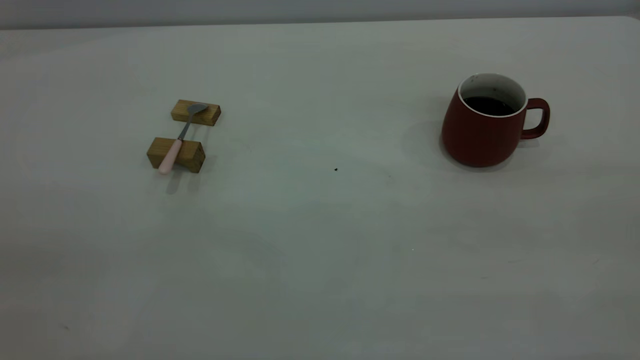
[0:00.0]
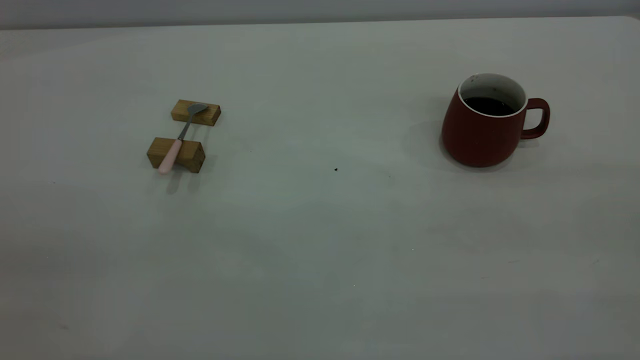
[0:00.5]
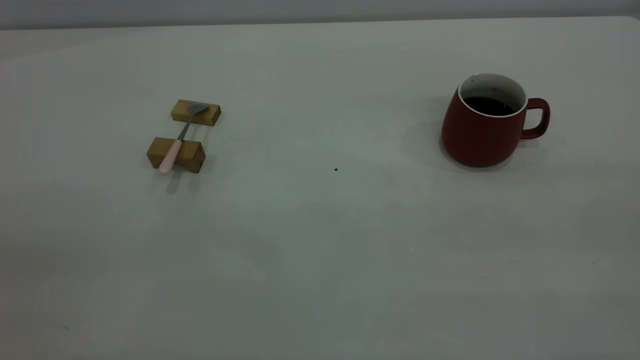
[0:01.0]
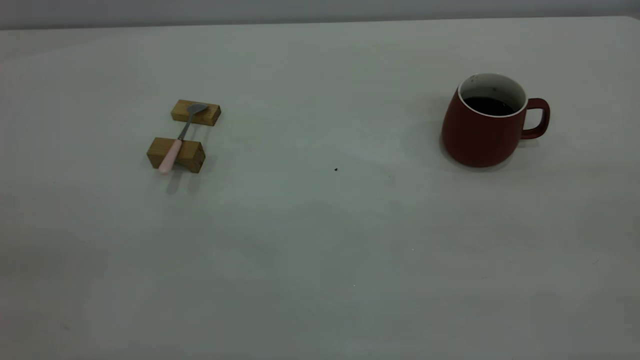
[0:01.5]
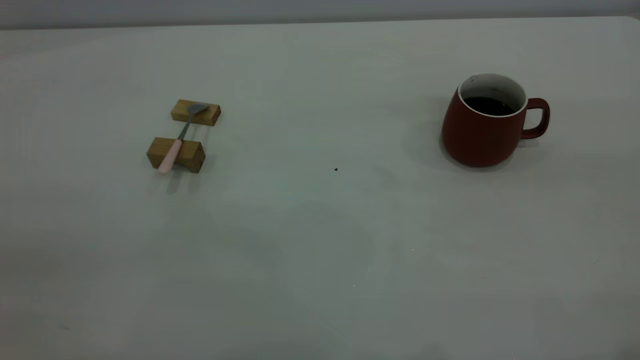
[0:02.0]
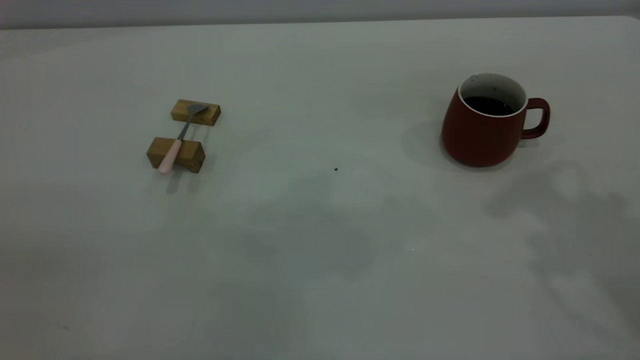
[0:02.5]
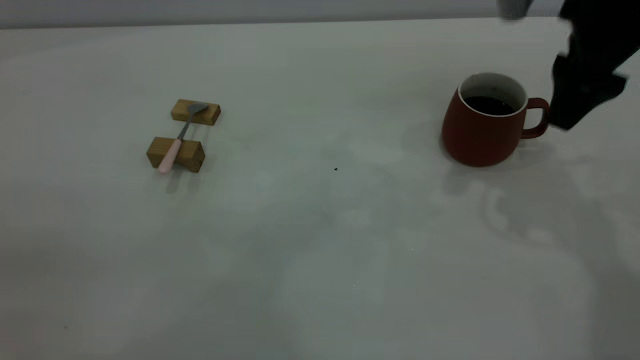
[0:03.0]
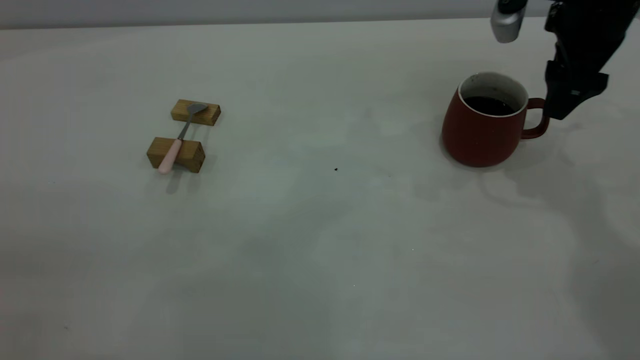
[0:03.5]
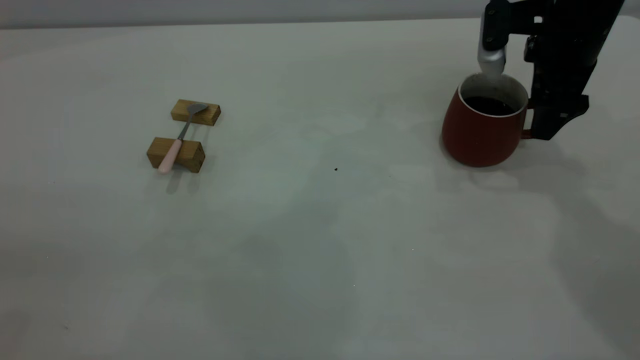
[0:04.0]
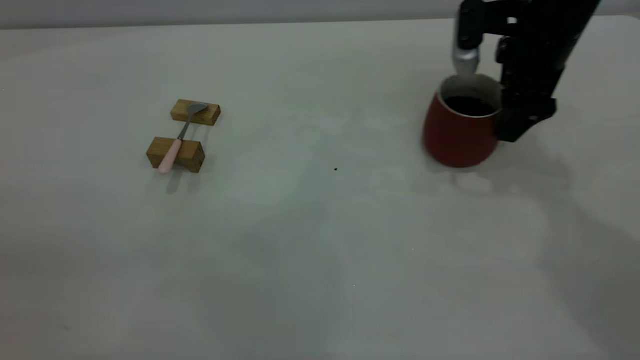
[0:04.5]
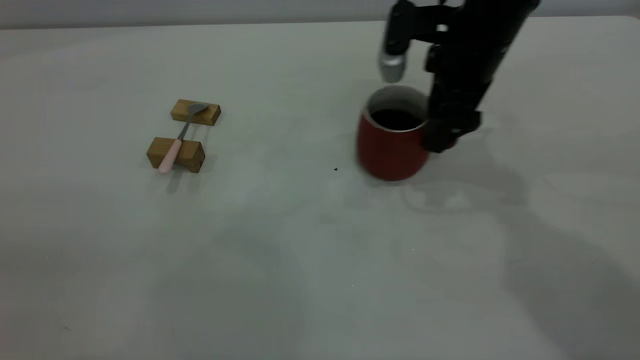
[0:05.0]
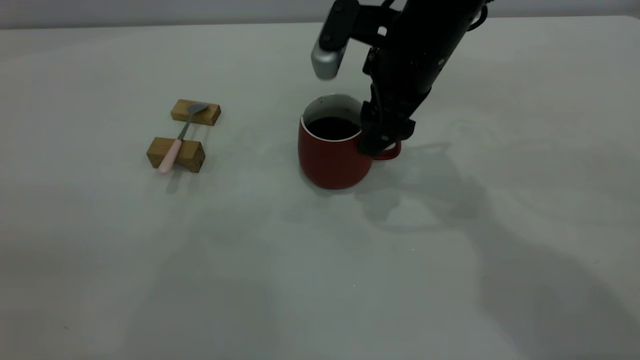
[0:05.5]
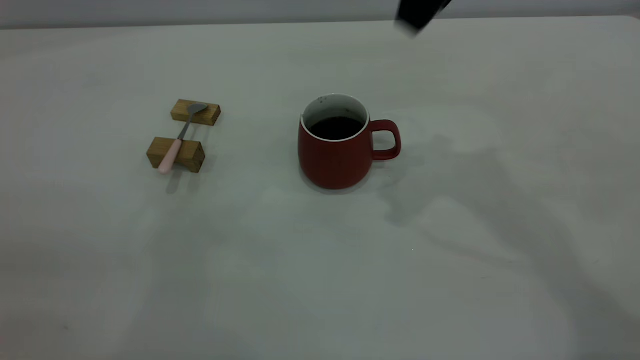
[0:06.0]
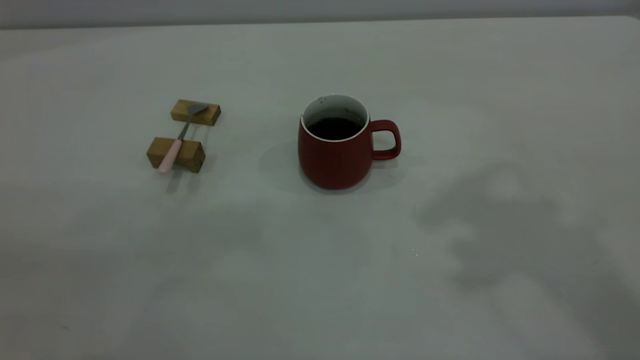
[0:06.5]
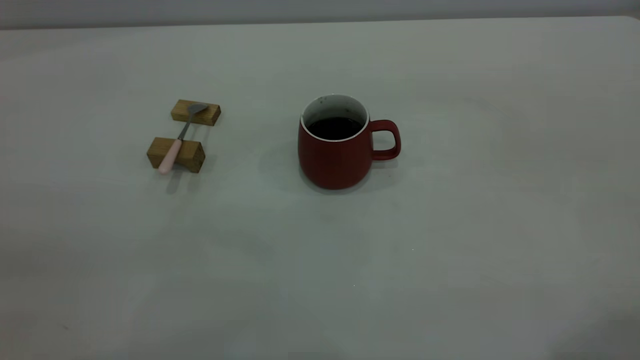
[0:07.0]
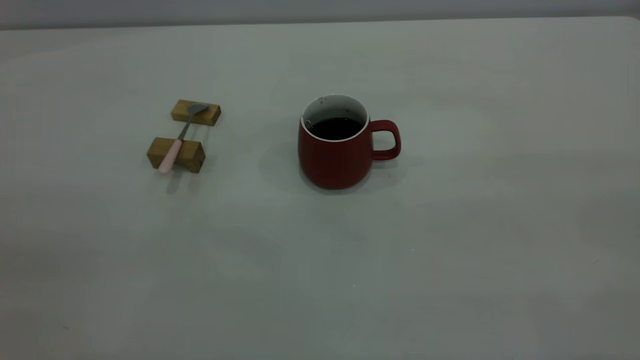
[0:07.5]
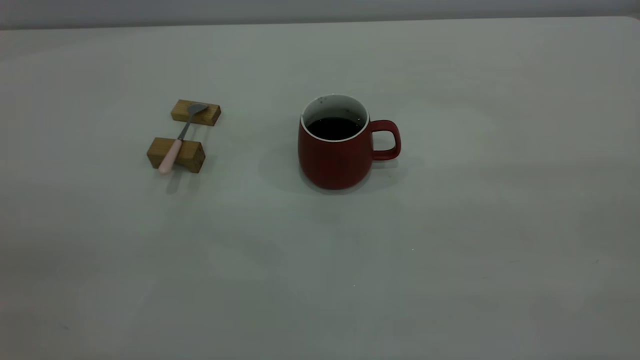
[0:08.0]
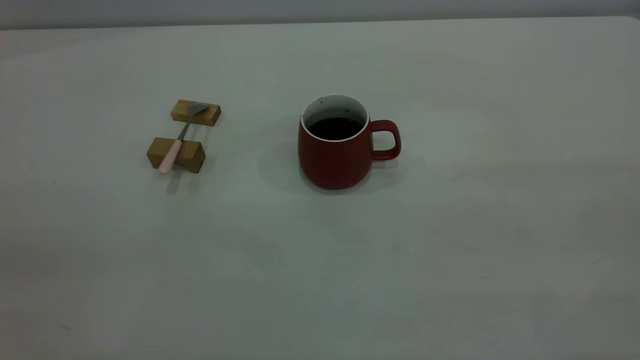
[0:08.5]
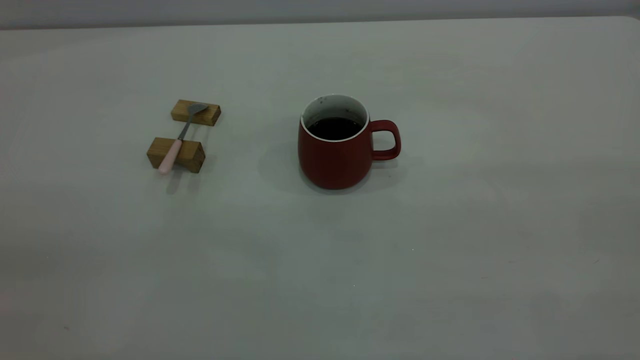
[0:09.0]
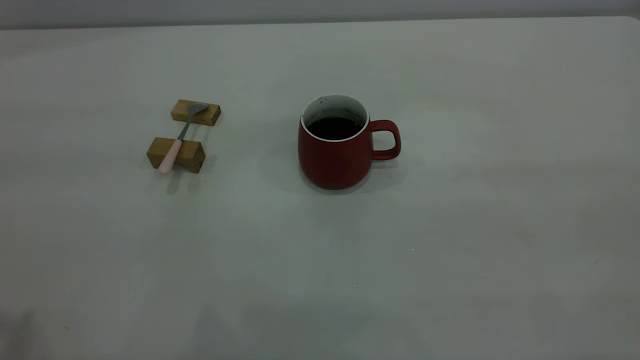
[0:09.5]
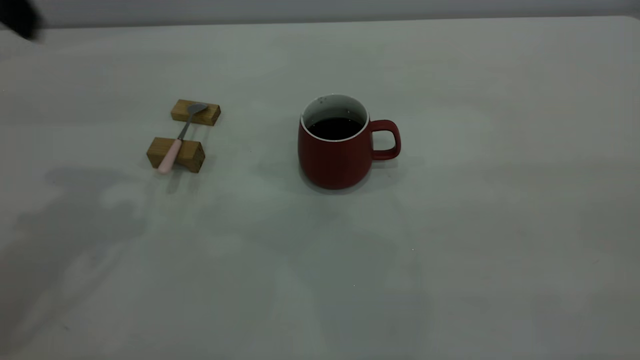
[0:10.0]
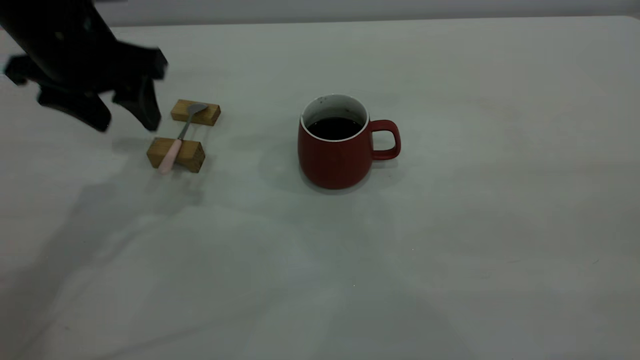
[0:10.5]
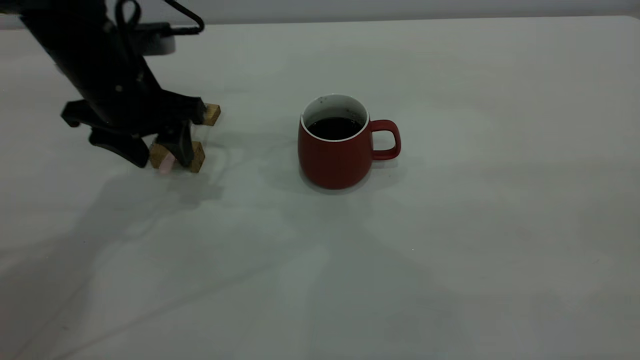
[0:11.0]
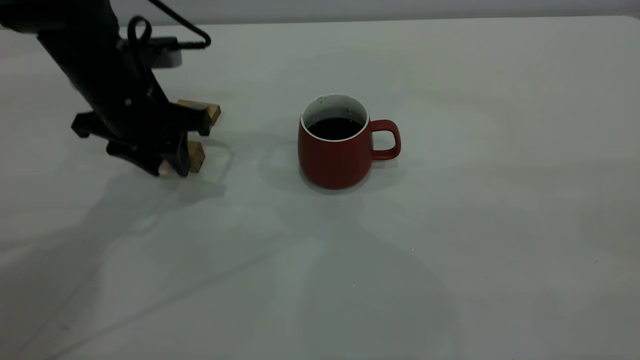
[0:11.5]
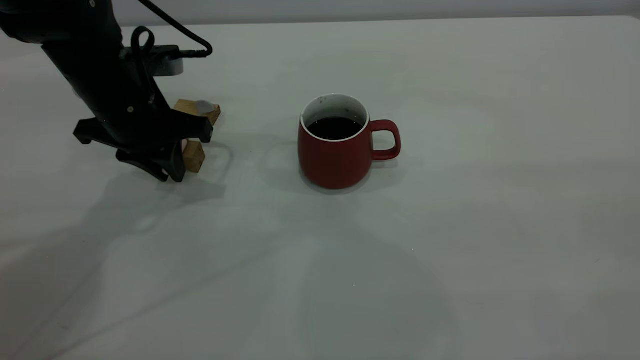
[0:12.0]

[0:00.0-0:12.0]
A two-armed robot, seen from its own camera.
Step, 0:00.0 to 0:05.5: Move the cup with coffee to the center of view.
0:02.0 to 0:04.0: The right gripper travels forward and downward by some 40 cm, and opens.
0:04.0 to 0:06.0: The right gripper shifts about 20 cm upward and to the left, and closes.
0:10.0 to 0:12.0: The left gripper heads downward, covering about 20 cm, and closes.

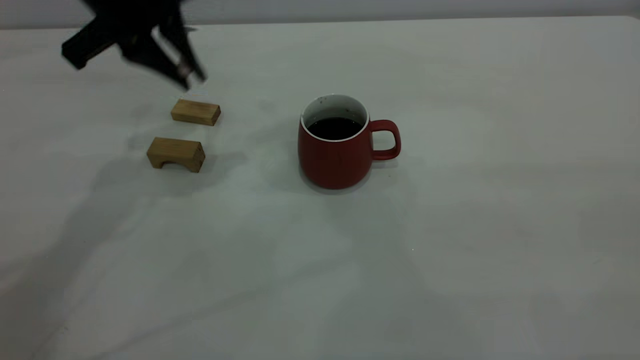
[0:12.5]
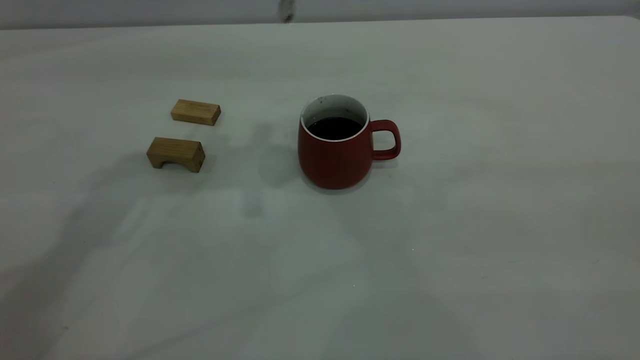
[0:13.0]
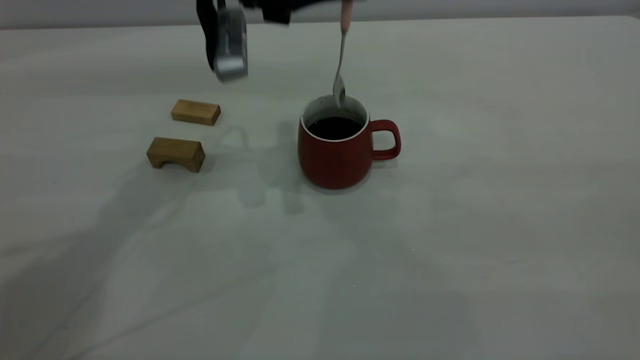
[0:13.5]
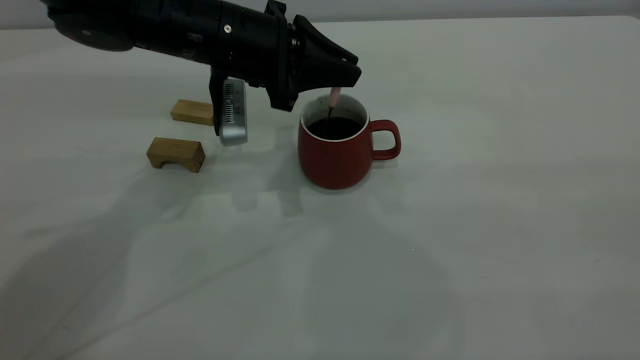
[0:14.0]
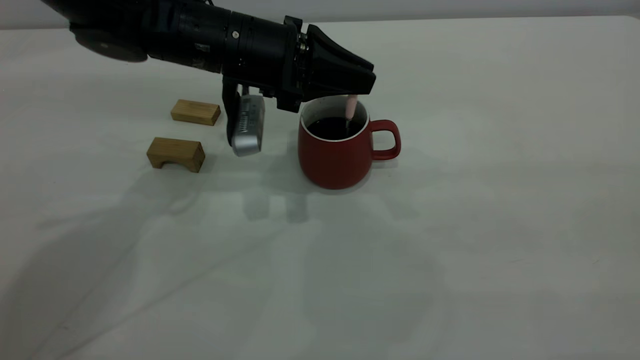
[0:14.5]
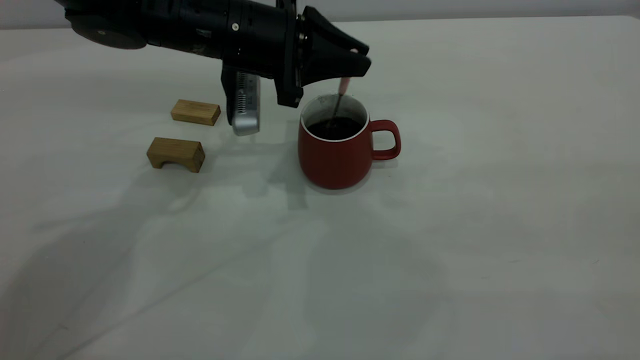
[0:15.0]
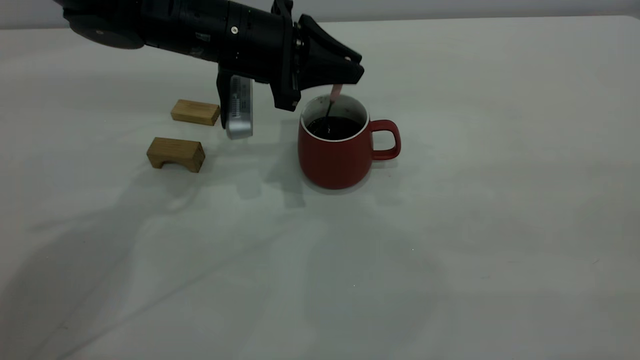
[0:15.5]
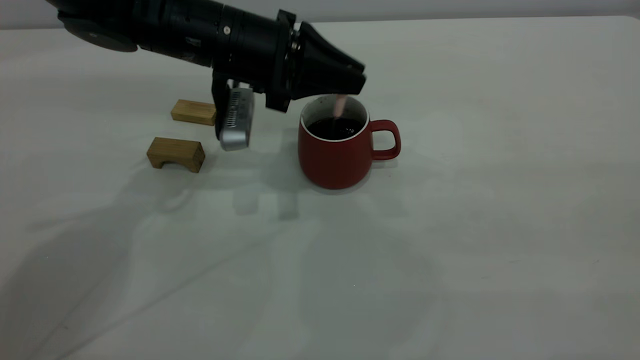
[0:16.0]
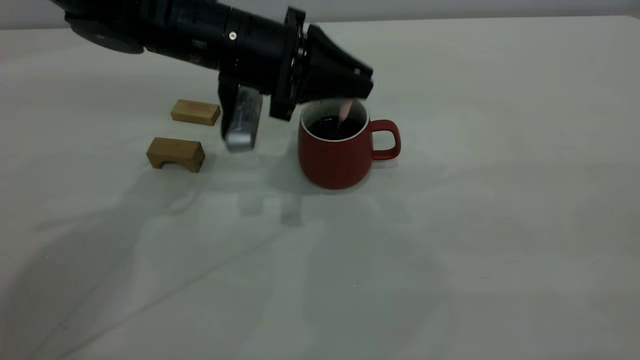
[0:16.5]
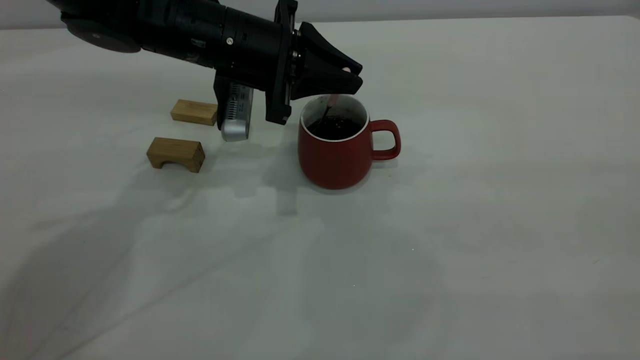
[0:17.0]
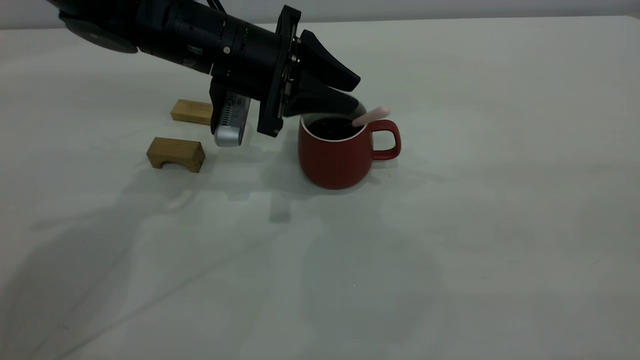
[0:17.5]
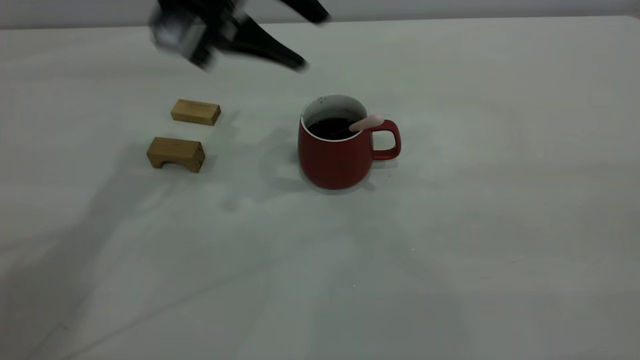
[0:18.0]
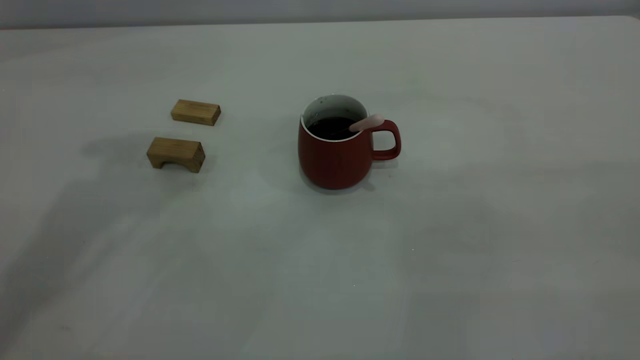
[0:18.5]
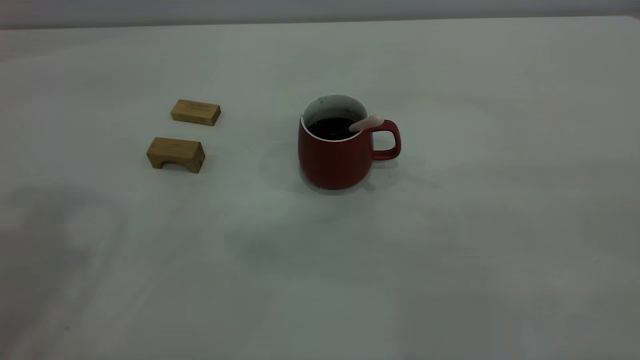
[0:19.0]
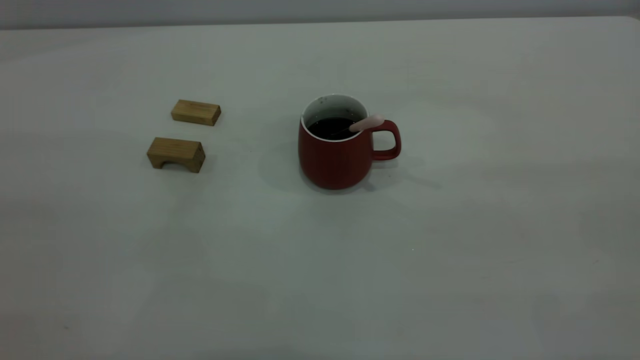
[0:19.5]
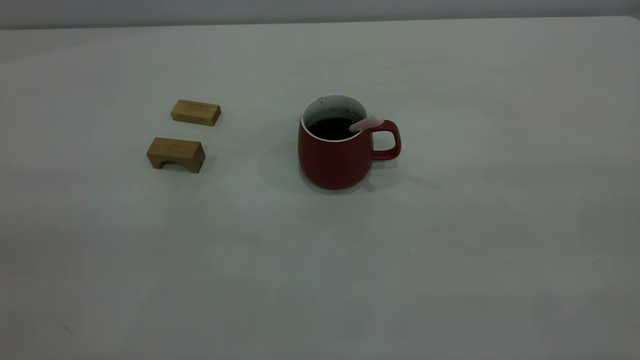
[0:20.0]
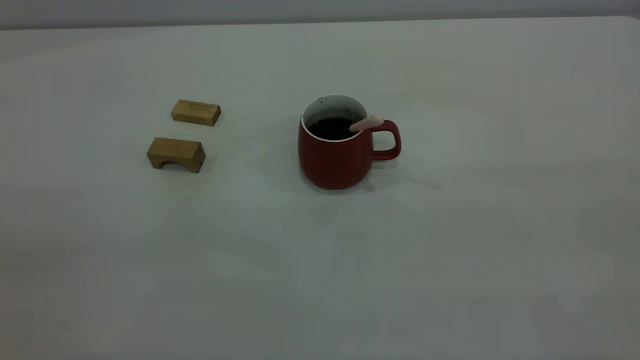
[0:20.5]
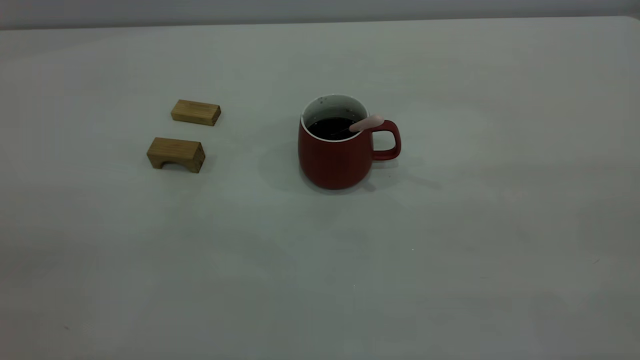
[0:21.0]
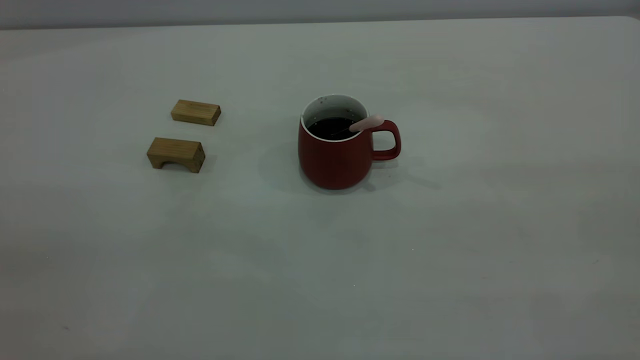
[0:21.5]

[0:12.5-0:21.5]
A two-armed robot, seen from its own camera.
Step, 0:12.5 to 0:17.5: Stir the coffee in the cup.
0:12.5 to 0:14.5: The left gripper is displaced downward and to the right by approximately 15 cm.
0:14.5 to 0:17.0: There are only small adjustments of the grippers.
0:17.0 to 0:19.5: The left gripper is displaced backward, upward and to the left by approximately 40 cm, and opens.
